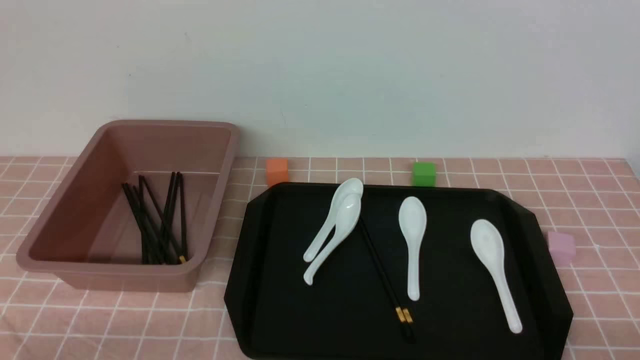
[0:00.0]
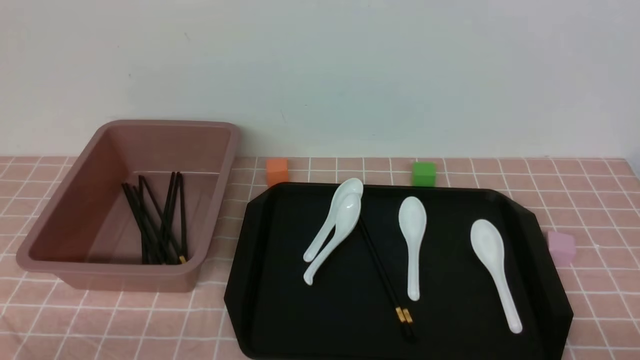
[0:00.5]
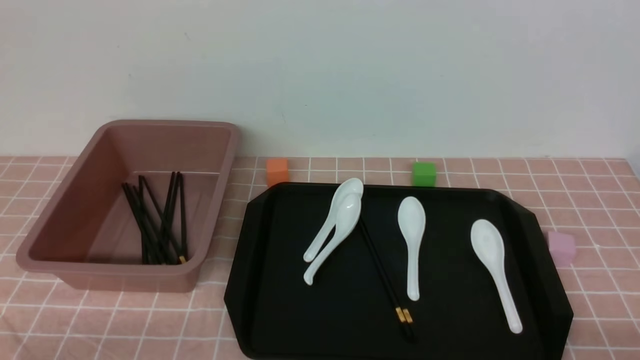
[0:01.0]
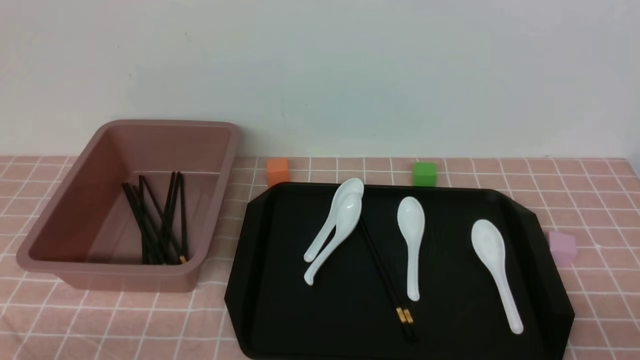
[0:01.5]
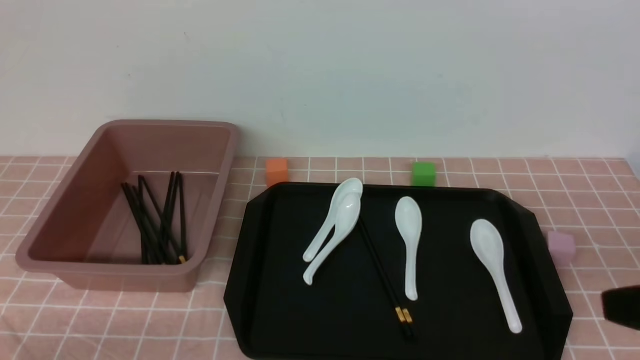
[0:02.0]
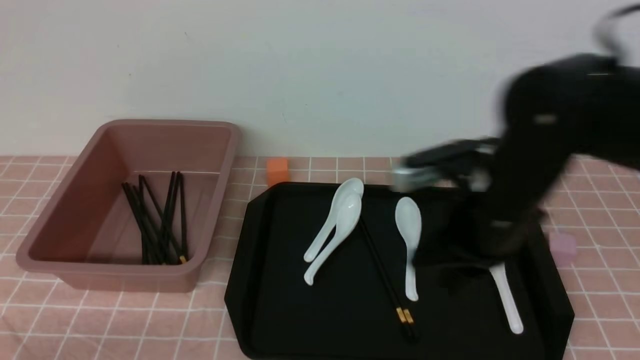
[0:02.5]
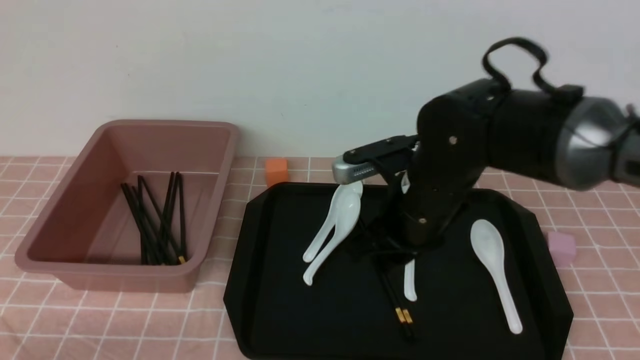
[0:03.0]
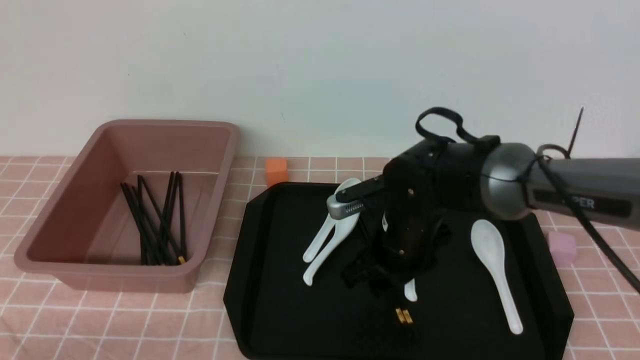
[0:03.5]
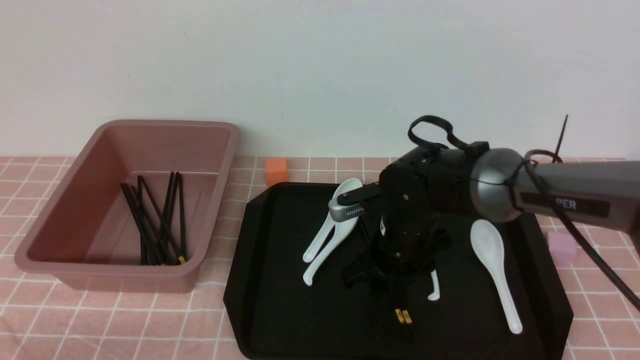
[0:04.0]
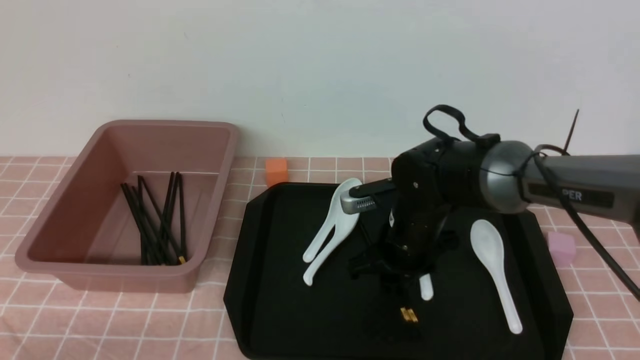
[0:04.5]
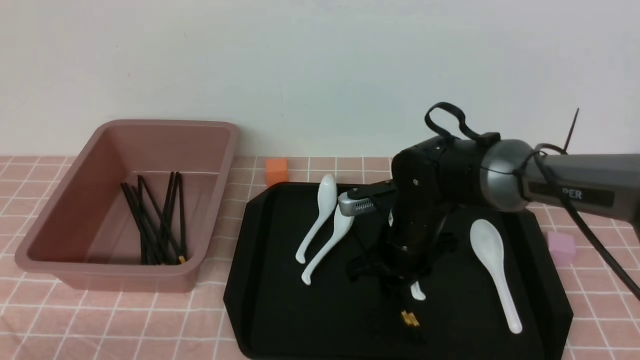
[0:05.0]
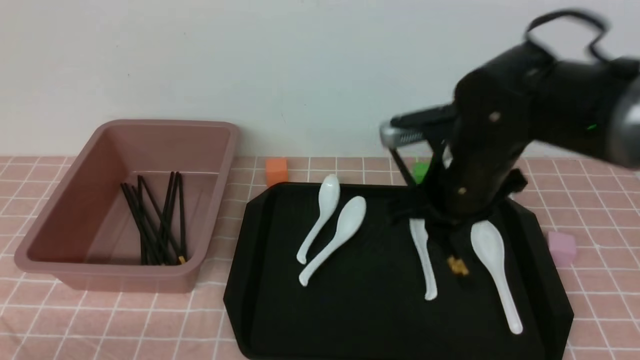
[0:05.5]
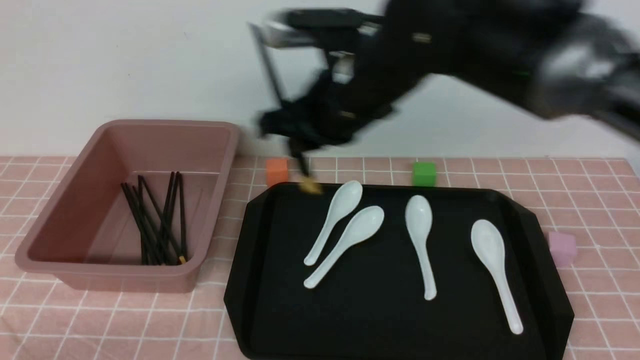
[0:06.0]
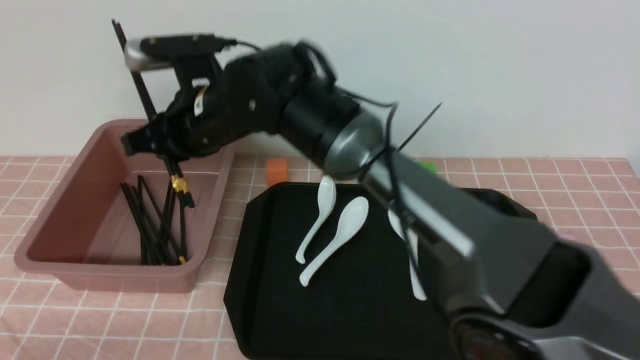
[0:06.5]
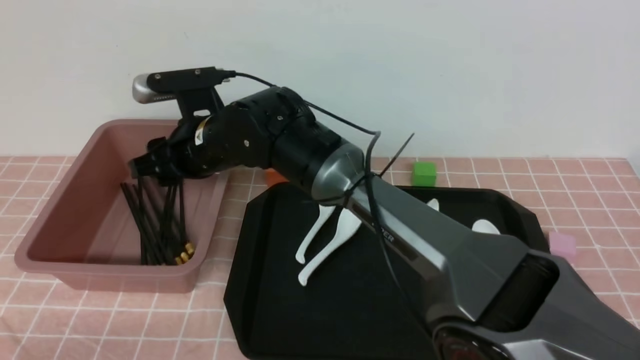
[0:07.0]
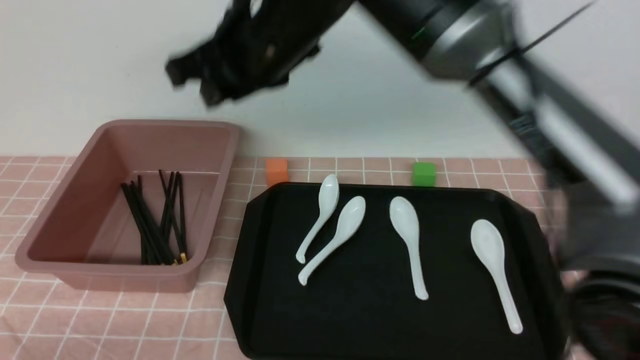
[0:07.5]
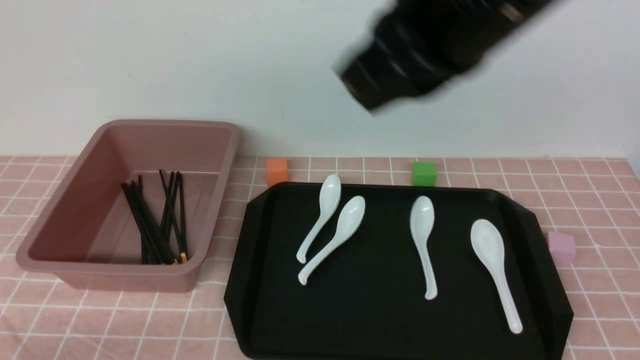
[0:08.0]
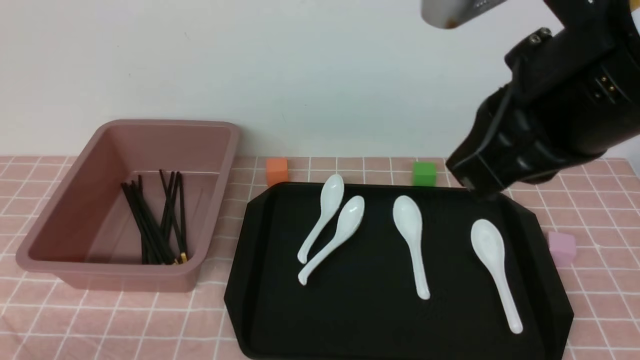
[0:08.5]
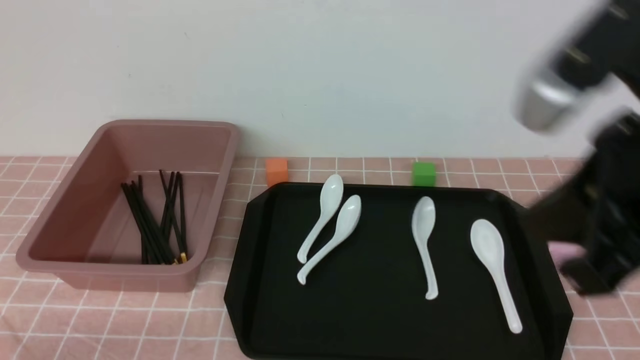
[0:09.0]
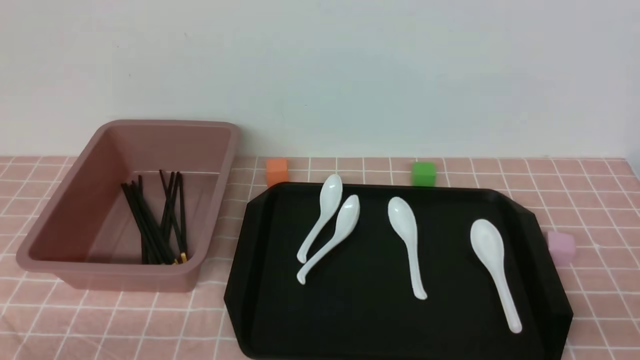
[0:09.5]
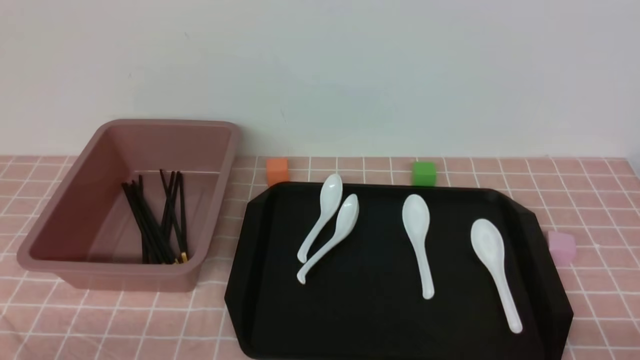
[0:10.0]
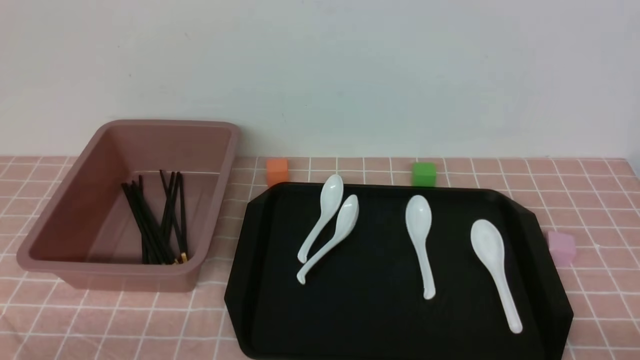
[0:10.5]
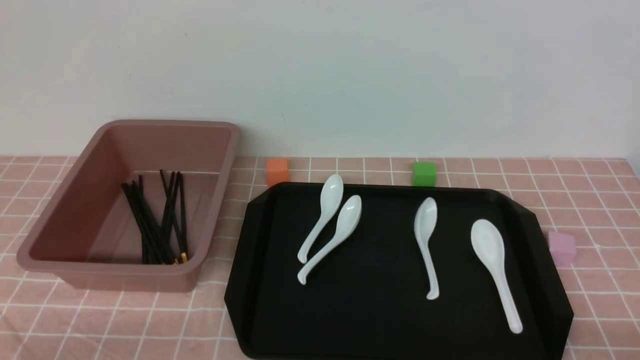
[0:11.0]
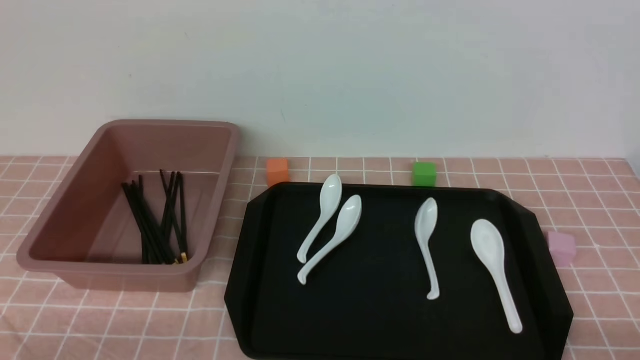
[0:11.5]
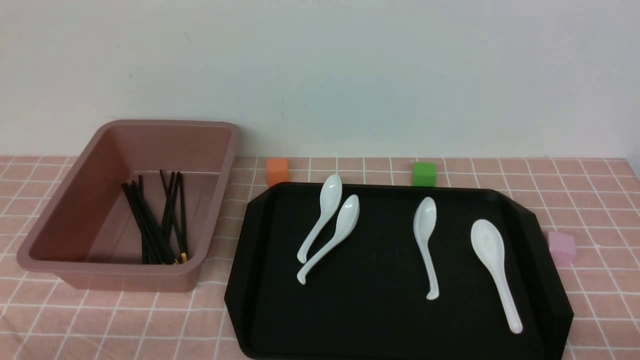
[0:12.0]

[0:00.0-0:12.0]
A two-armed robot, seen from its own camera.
Step, 0:00.0 to 0:05.0: use the right arm to grab a pair of chopsticks.
Step, 0:05.5 to 0:07.0: use the right arm to put the chopsticks into the lunch box.
0:02.0 to 0:04.0: The right gripper is displaced forward, to the left and downward by about 35 cm, and opens up.
0:04.0 to 0:06.0: The right gripper goes about 20 cm upward, and closes.
0:06.0 to 0:08.0: The right gripper heads upward and backward, covering approximately 15 cm, and closes up.
0:08.0 to 0:10.0: The right gripper is displaced downward, to the right and backward by approximately 40 cm.
0:10.0 to 0:12.0: Both grippers stay put.

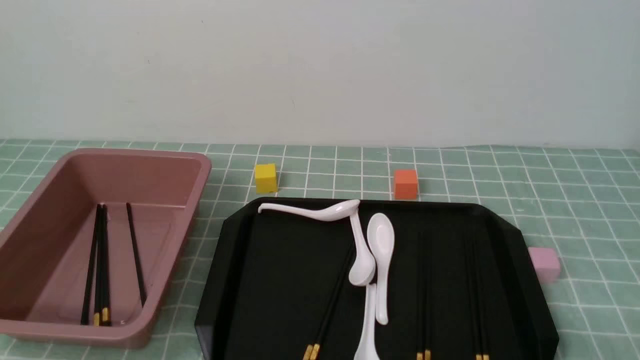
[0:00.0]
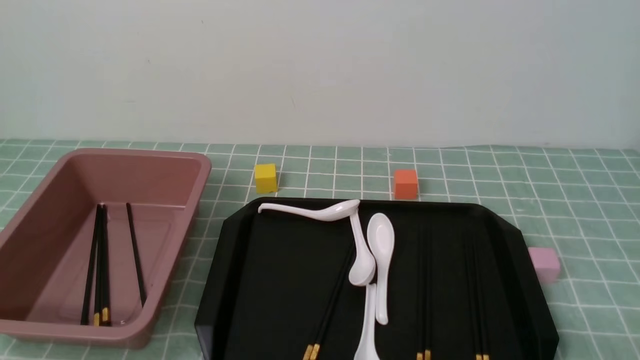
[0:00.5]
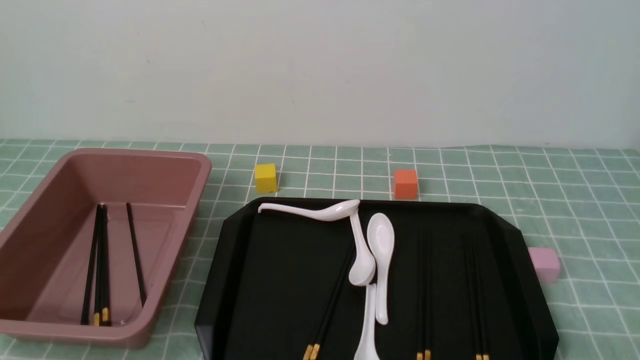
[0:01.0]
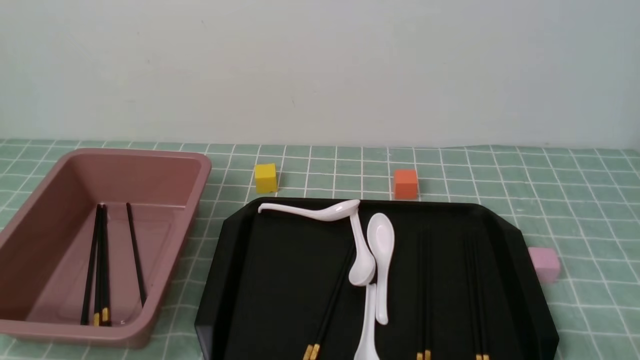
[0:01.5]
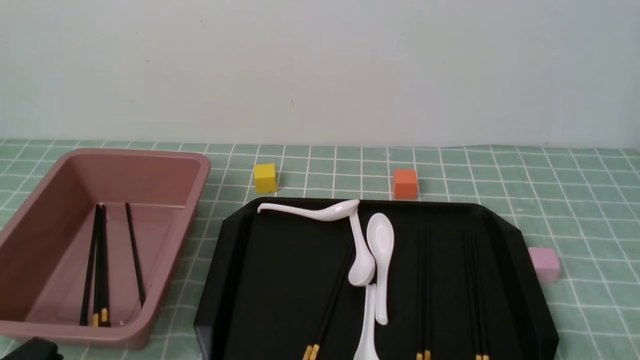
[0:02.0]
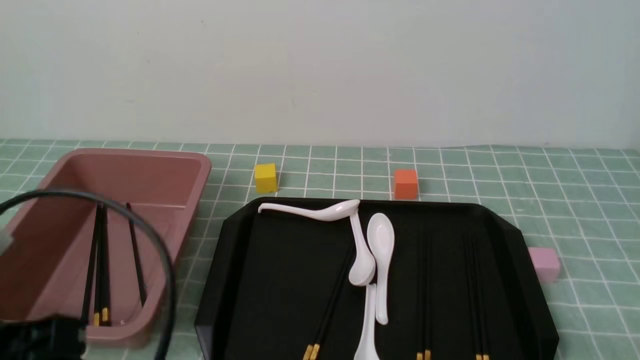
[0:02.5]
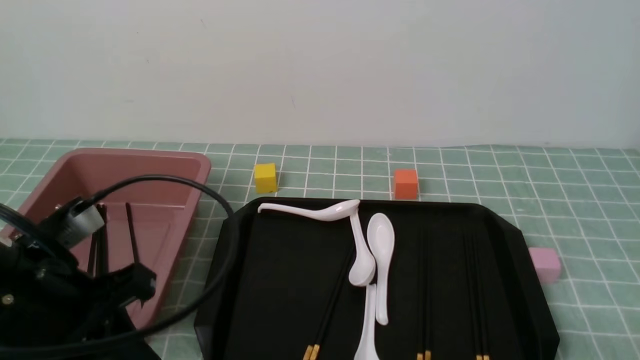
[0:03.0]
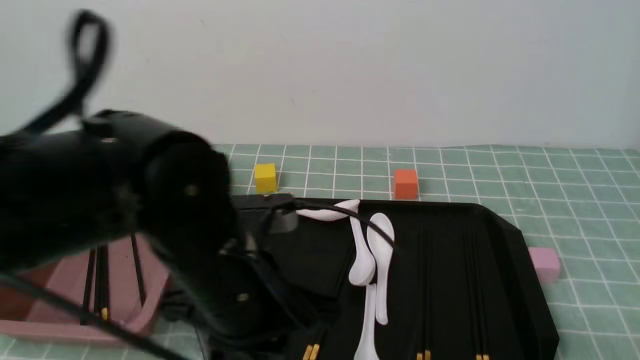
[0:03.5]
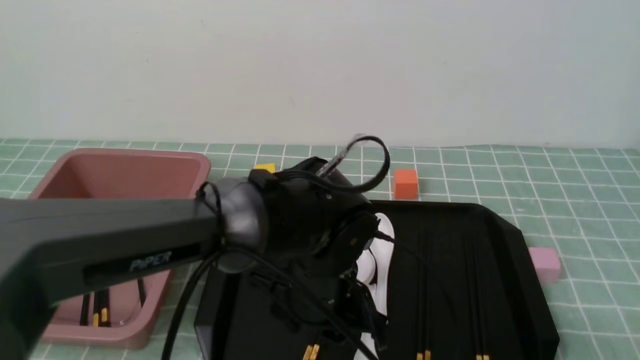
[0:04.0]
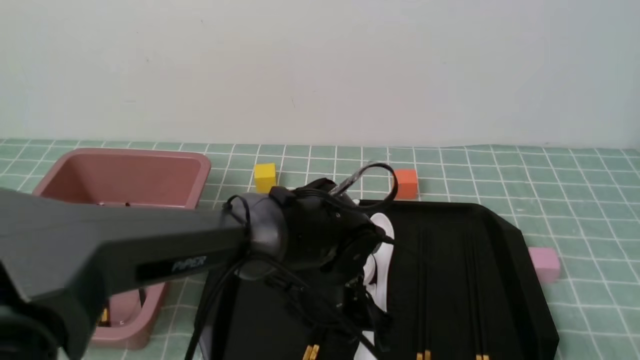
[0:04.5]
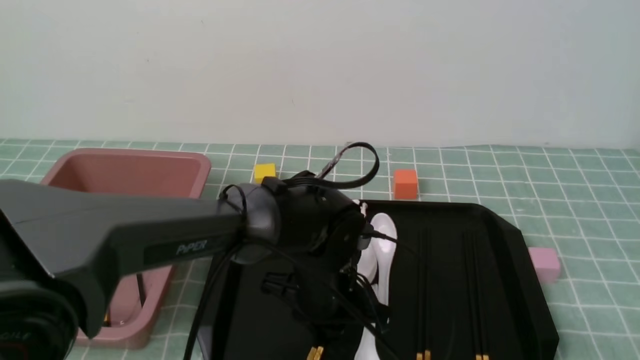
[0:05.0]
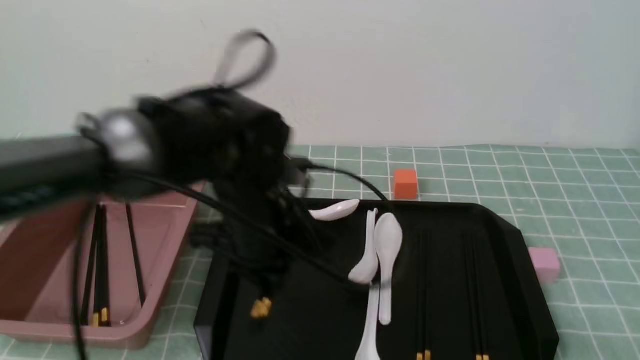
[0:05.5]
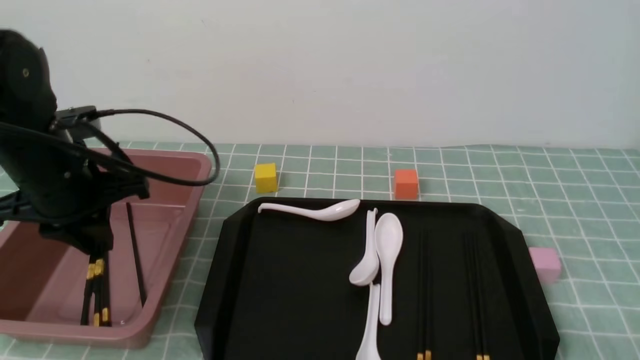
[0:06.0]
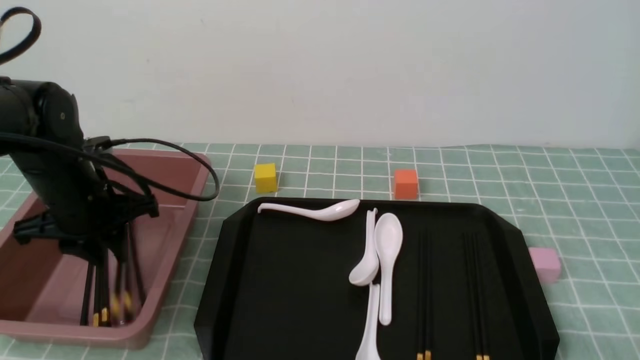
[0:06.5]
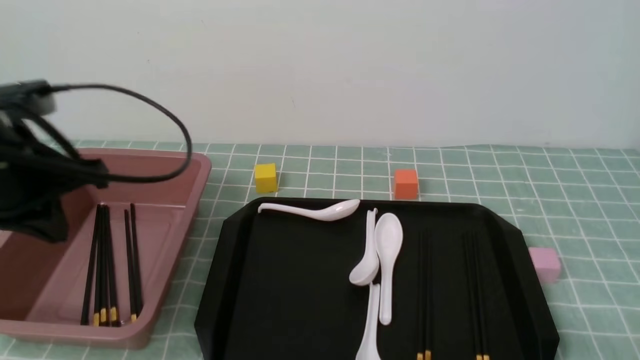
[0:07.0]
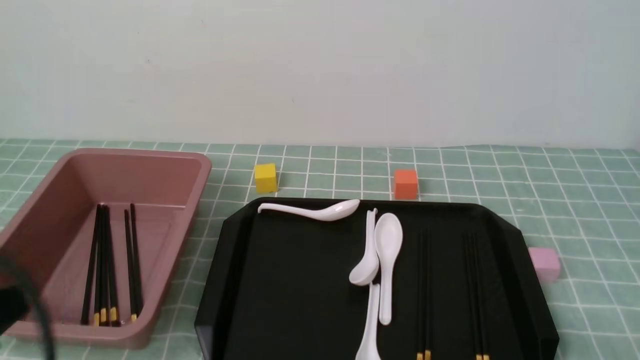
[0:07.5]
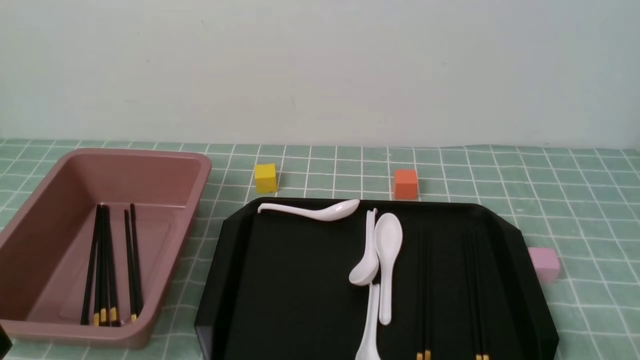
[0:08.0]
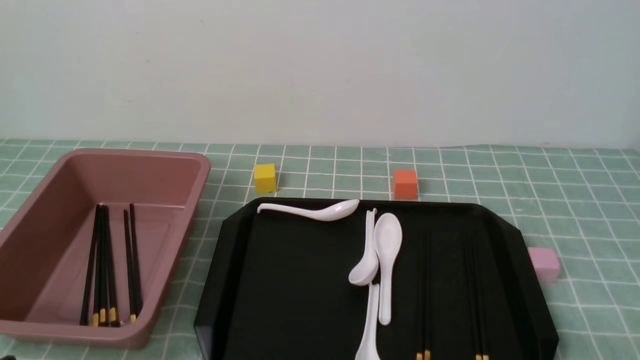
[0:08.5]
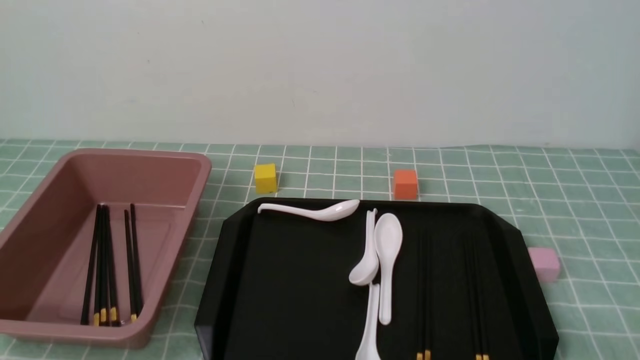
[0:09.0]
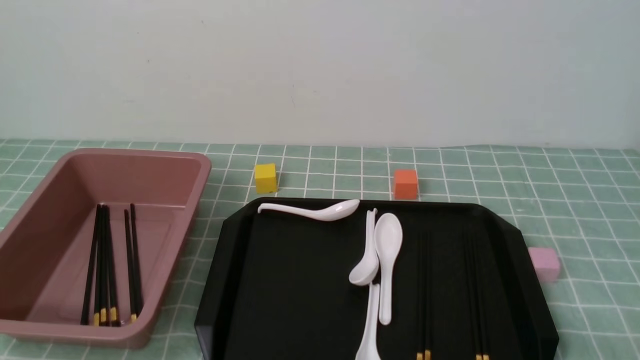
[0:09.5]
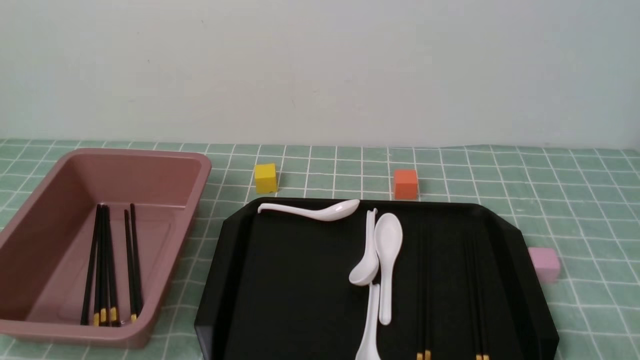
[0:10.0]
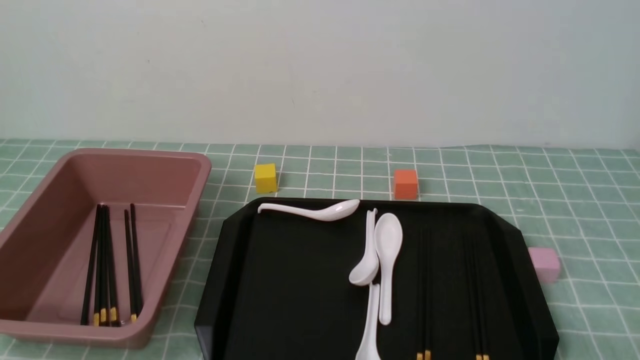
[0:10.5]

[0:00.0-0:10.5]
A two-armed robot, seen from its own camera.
Step, 0:00.0 to 0:05.5: use the left arm to grab a pair of chopsticks.
Step, 0:06.0 to 0:06.5: use the left arm to put the chopsticks into the lunch box.
0:02.0 to 0:04.0: The left gripper moves to the right and forward, about 35 cm, and opens its fingers.
0:04.0 to 0:06.5: The left gripper moves to the left, approximately 25 cm, and closes its fingers.
0:06.5 to 0:08.5: The left gripper moves backward, roughly 30 cm, and closes up.
